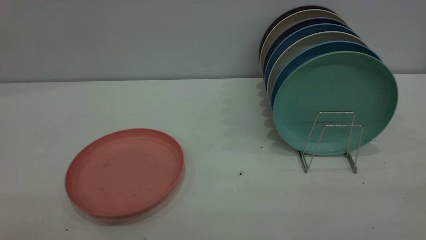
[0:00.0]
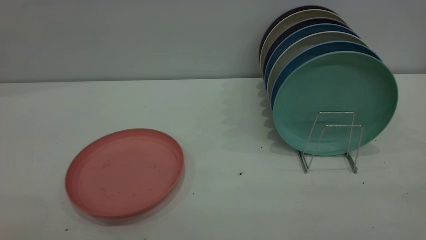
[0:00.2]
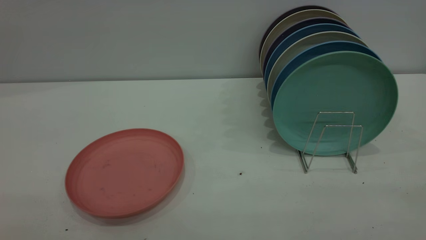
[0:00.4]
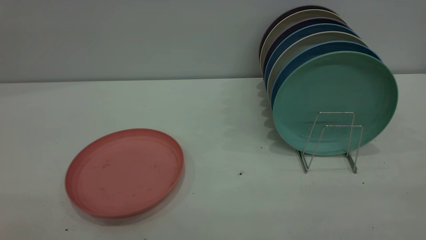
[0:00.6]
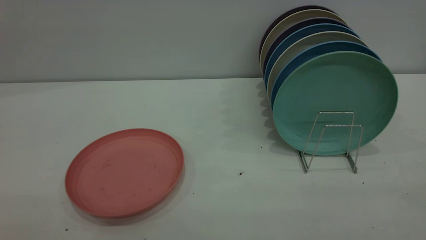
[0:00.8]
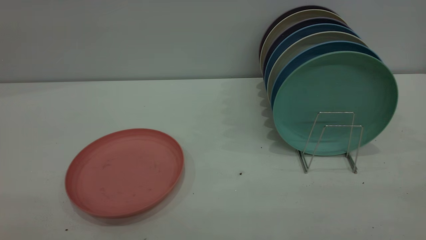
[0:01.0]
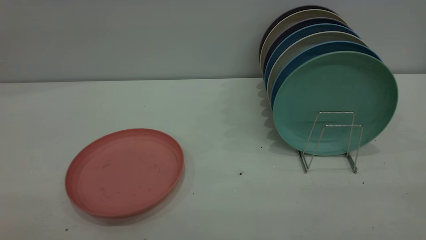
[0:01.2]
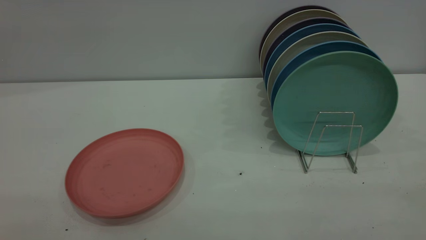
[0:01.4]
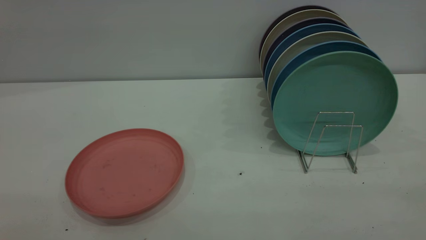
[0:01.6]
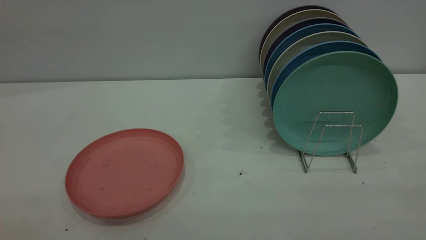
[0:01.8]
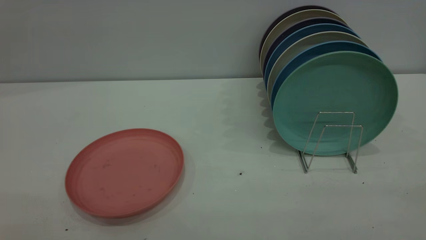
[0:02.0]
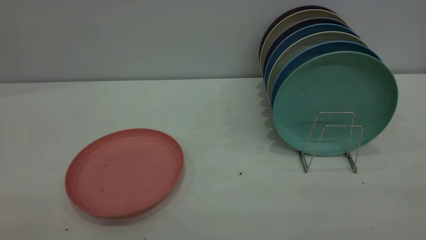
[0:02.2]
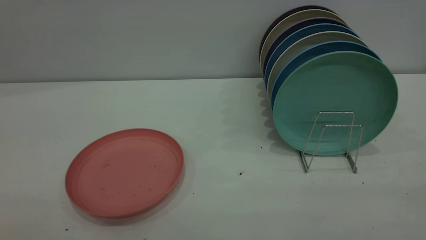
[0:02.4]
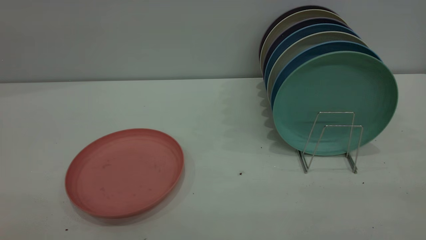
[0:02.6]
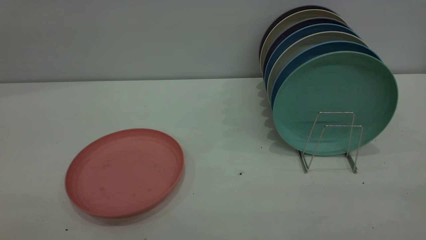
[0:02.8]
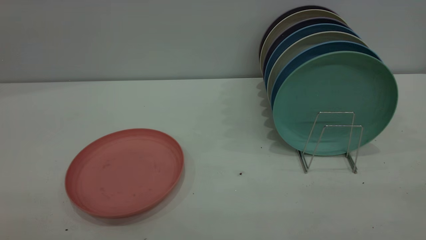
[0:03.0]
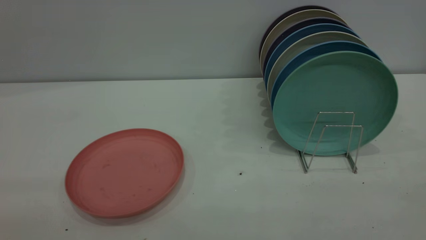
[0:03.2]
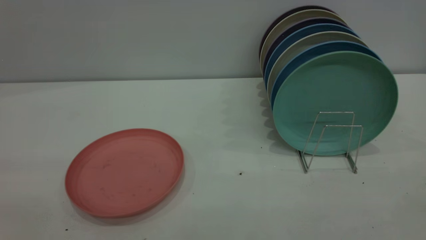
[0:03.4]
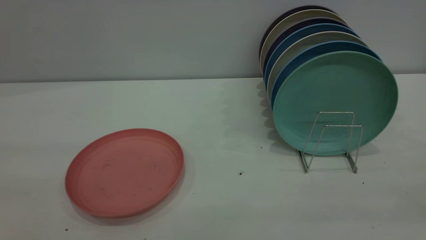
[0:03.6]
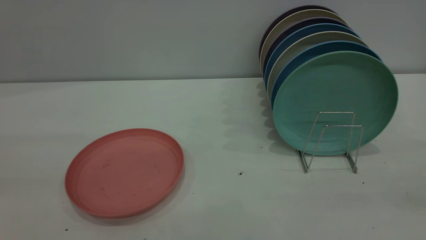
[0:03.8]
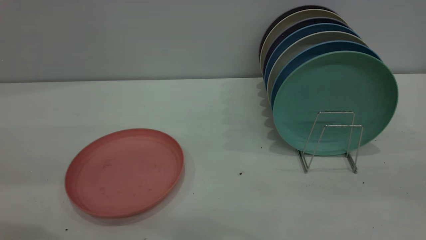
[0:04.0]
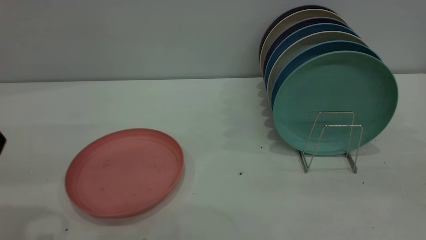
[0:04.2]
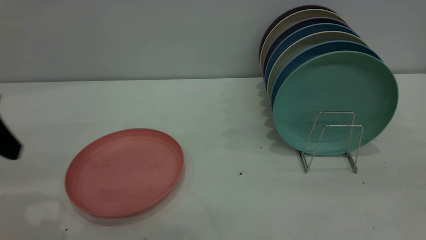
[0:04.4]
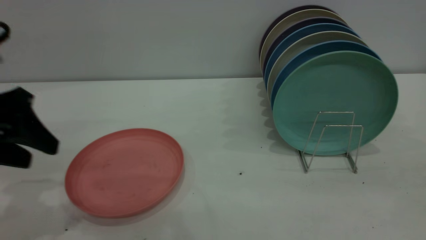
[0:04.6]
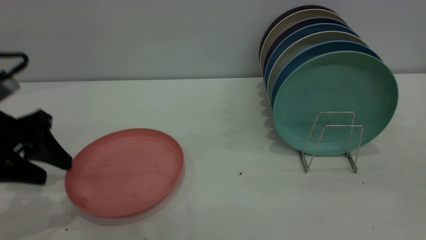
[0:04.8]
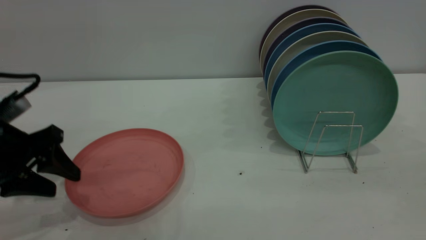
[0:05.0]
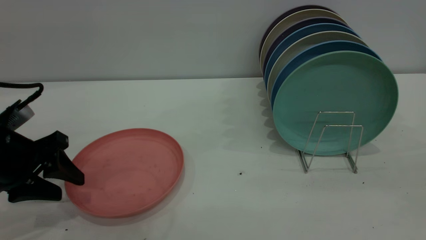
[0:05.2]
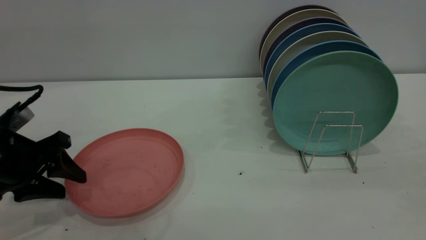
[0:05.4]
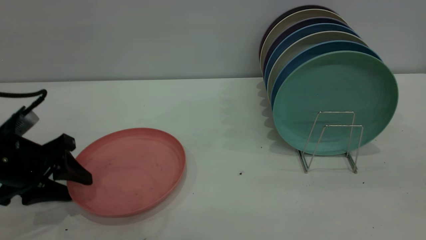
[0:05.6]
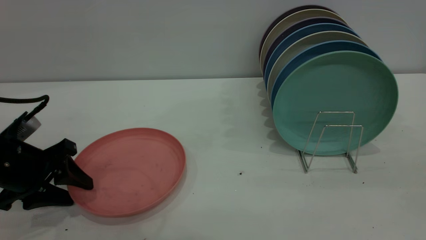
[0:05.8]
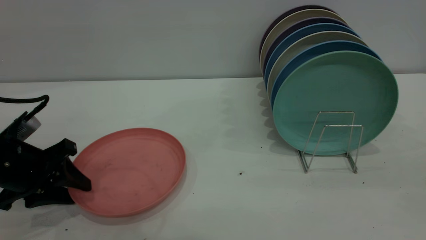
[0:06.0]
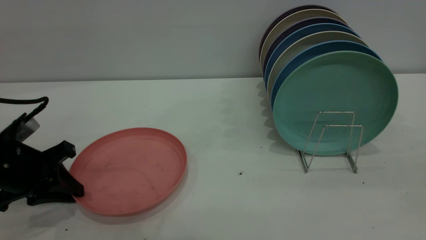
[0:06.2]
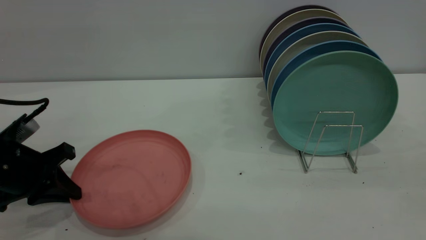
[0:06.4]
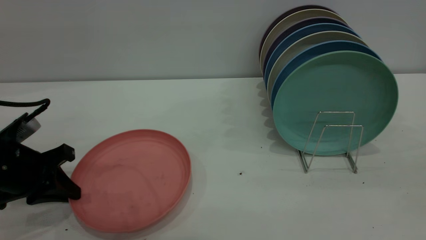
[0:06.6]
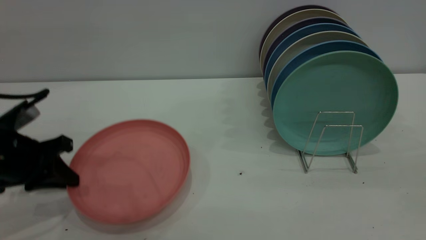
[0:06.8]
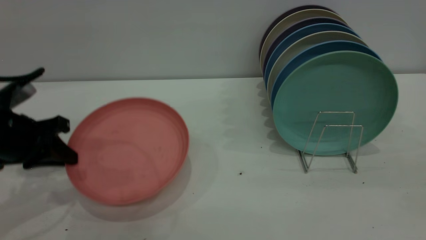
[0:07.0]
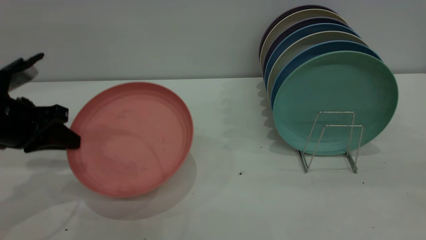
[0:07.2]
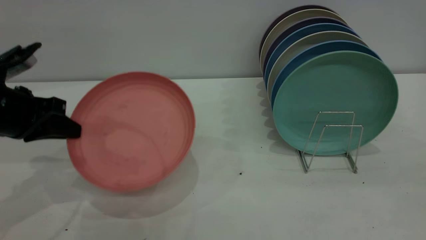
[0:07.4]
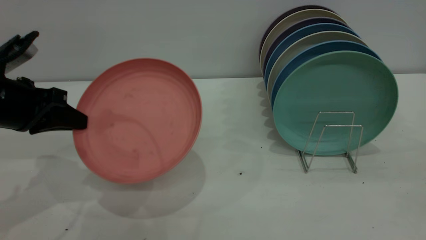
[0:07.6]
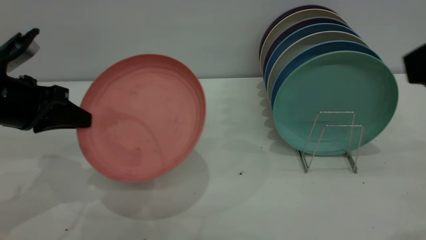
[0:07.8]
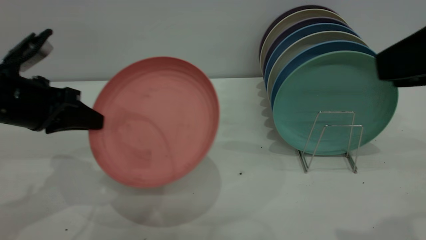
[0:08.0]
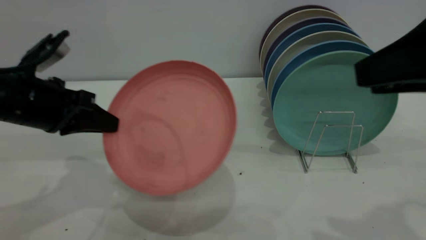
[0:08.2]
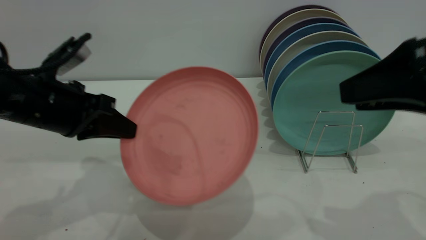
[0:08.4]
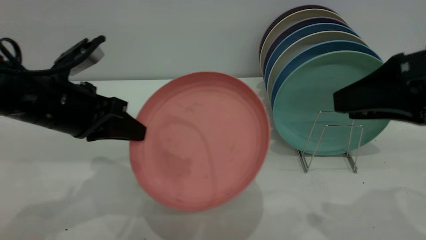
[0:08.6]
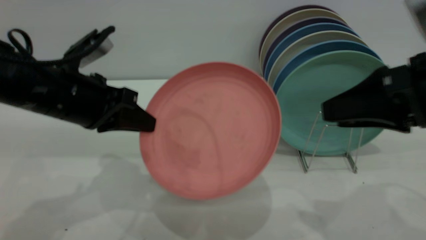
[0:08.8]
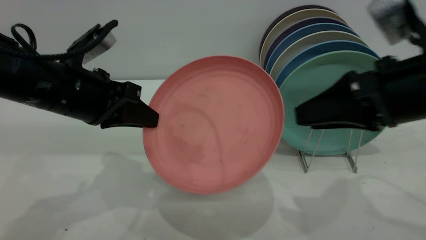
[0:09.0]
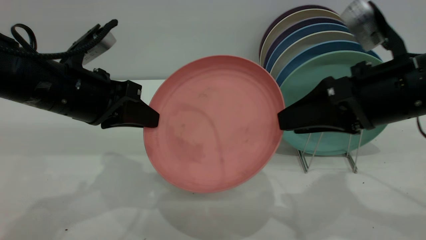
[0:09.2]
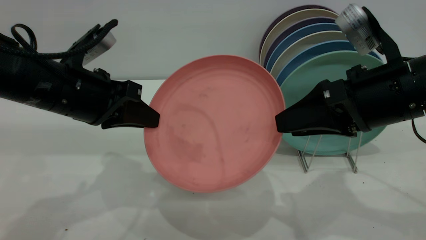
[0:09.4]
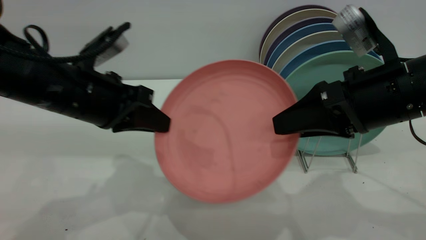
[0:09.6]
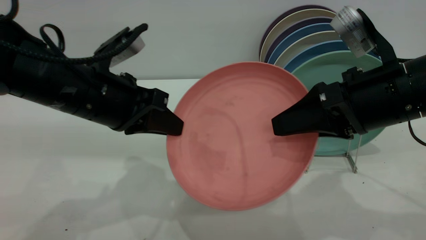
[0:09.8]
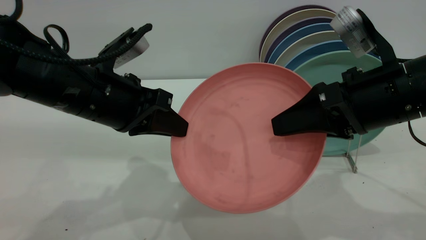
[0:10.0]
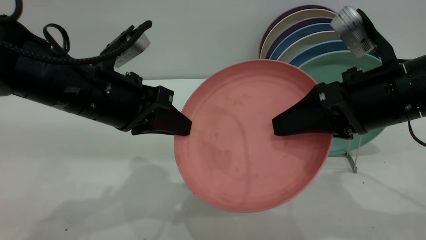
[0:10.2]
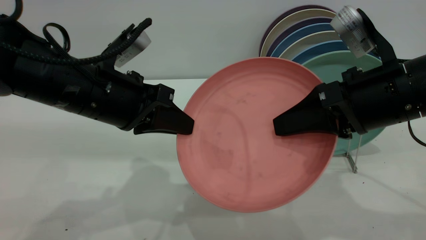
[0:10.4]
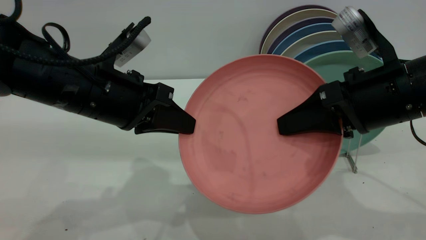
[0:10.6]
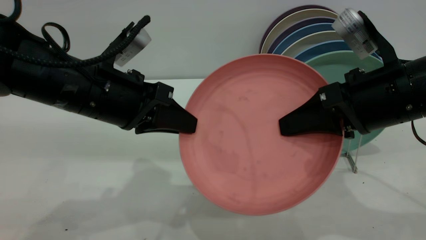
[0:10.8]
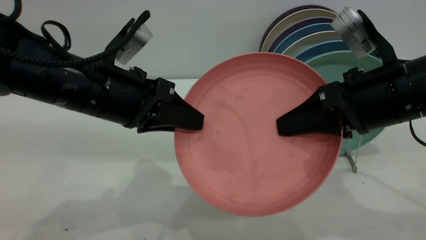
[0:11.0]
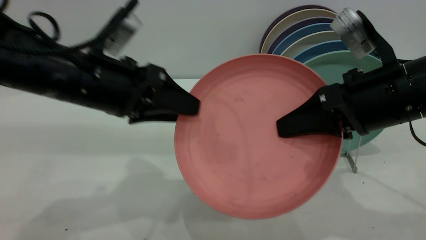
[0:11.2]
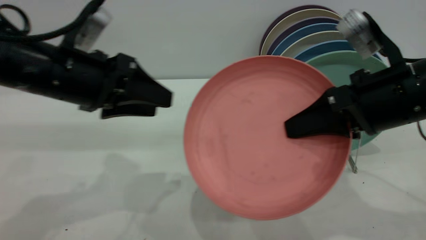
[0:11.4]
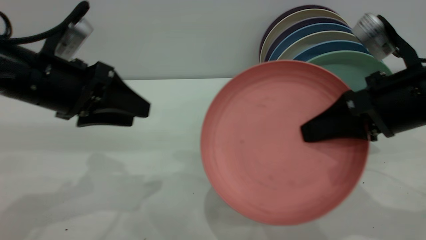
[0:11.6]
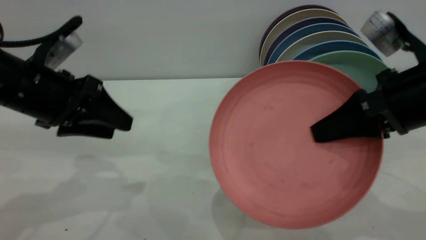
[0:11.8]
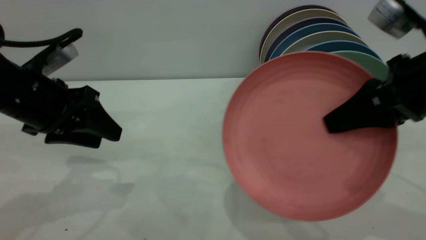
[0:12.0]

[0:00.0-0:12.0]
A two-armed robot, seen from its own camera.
Task of the whole recording: put the plate on the plate rack.
Step, 0:00.0 to 0:07.0: Pick up the plate with the left gripper.
Step, 0:07.2 to 0:11.4: Pass the plate from the left gripper to the right gripper.
0:00.0 to 0:03.0: Both grippers stay put.
0:03.0 to 0:04.4: The left gripper shifts some 30 cm forward and downward.
0:04.4 to 0:06.0: The left gripper goes roughly 15 cm downward.
0:06.0 to 0:07.6: The left gripper moves upward, some 5 cm, and closes its fingers.
0:07.6 to 0:09.0: The left gripper goes some 10 cm to the right. The right gripper goes roughly 15 cm downward and forward.
0:09.0 to 0:10.4: The right gripper closes up.
0:10.4 to 0:12.0: The left gripper travels to the left by some 10 cm, and opens its fingers. The right gripper changes place by approximately 5 cm, and closes its fingers.

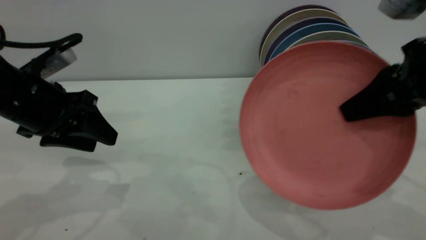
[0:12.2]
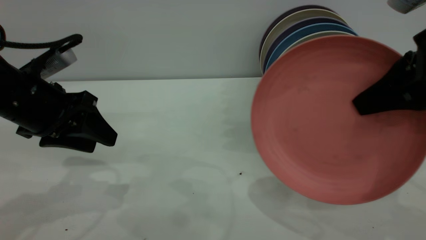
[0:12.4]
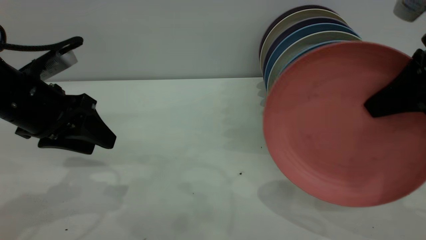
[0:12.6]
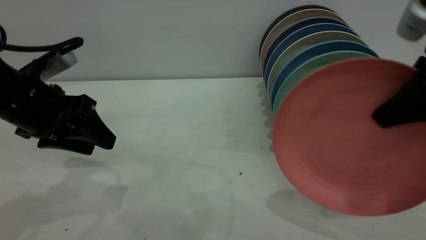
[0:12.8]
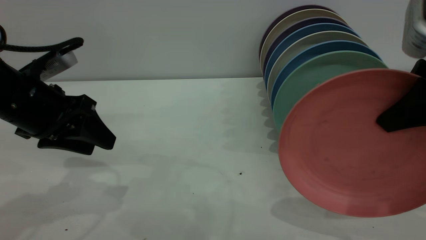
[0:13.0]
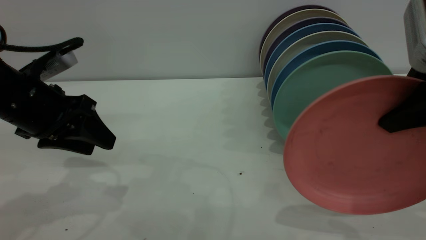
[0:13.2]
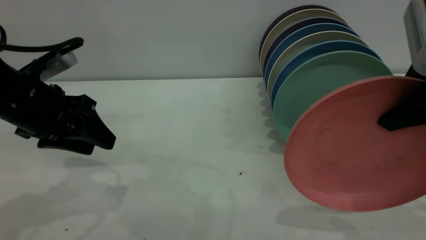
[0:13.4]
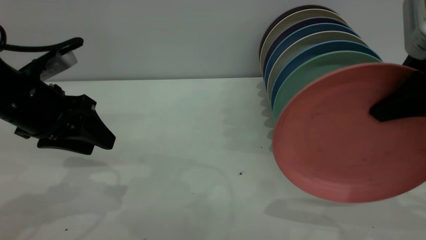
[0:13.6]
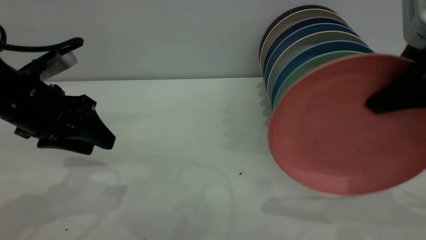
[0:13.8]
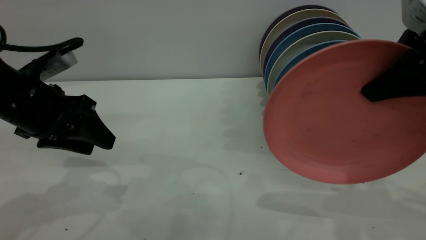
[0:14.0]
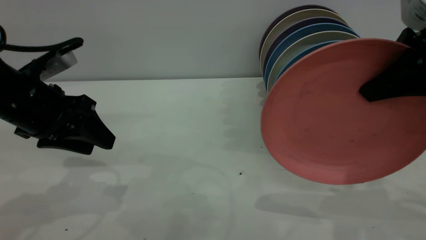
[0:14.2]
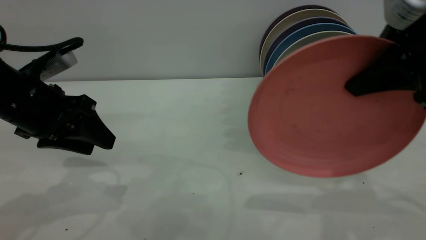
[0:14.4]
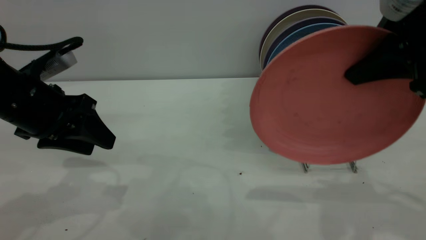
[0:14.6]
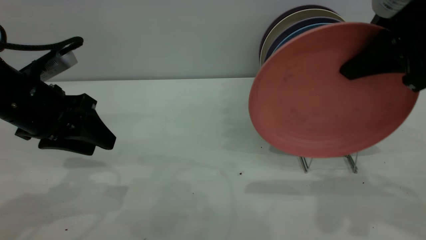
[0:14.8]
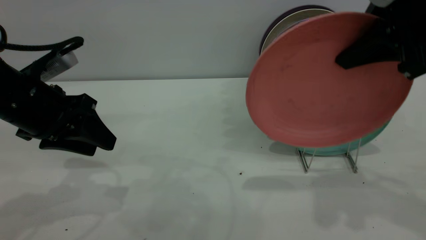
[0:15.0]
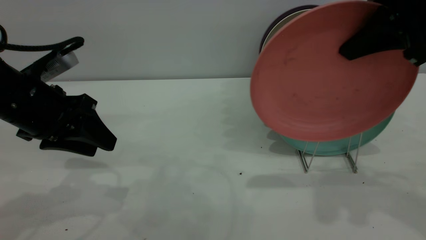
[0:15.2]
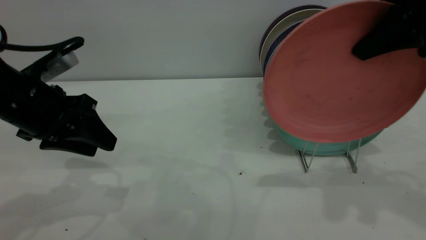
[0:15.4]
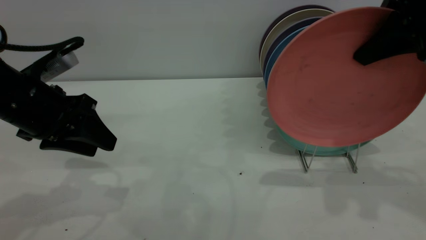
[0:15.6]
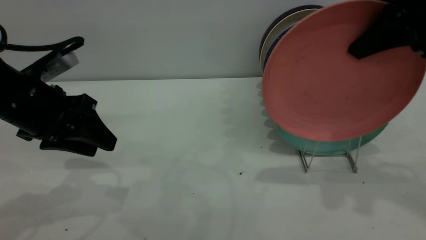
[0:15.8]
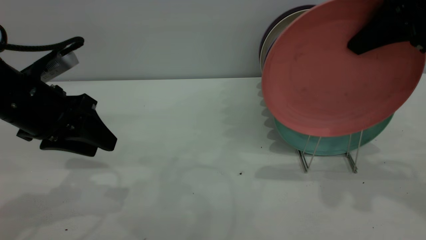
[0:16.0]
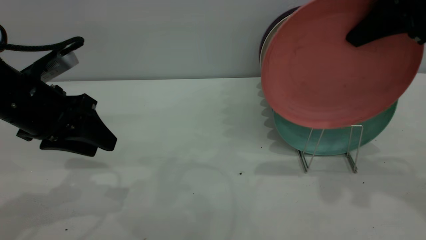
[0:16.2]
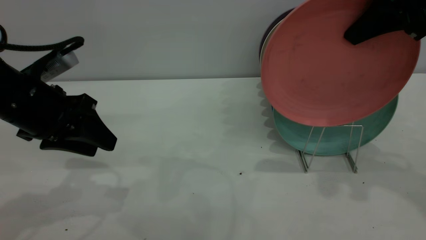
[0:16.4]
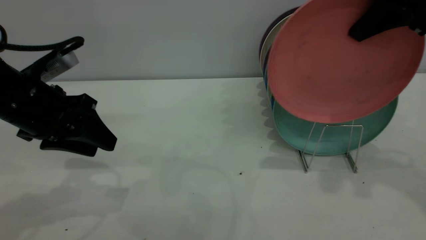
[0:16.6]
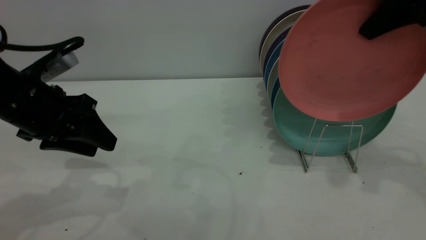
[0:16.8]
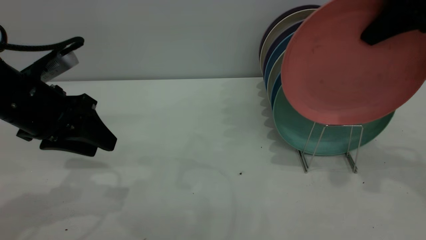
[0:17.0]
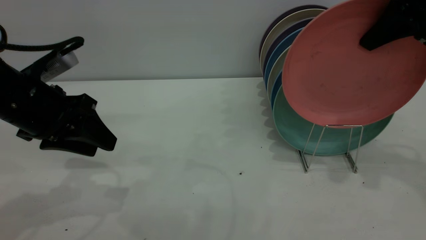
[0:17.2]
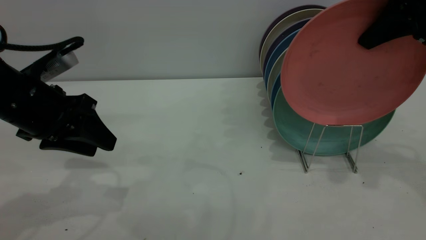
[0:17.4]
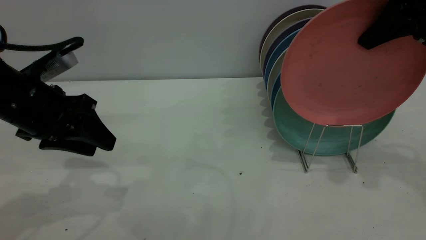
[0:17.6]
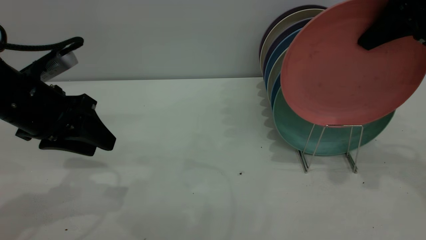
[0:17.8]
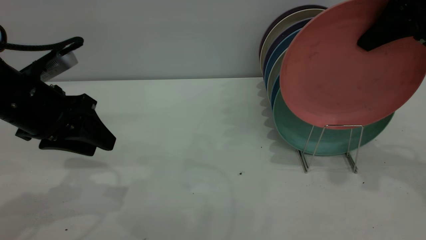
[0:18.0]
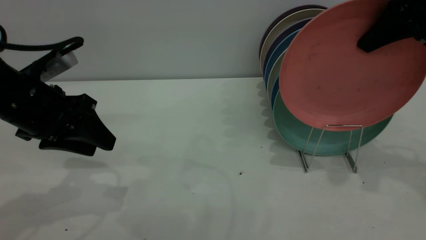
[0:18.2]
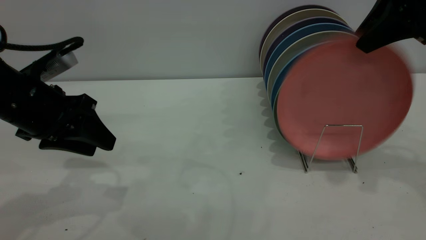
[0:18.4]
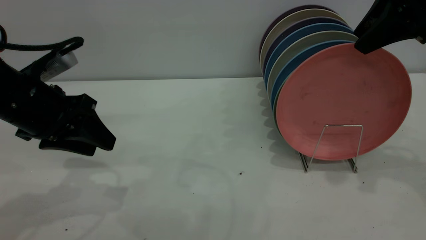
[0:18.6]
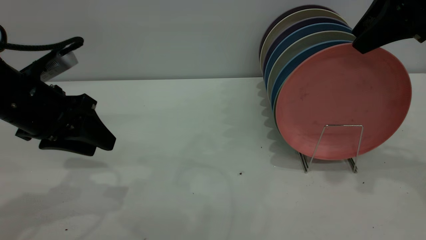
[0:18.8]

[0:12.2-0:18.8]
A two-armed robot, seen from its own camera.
Task of the whole recording: put the plate on the plate rack.
0:13.8 to 0:15.4: The right gripper heads forward, covering approximately 5 cm.
0:15.4 to 0:17.2: The right gripper is displaced forward by about 5 cm.
0:17.2 to 0:18.8: The right gripper opens up.
